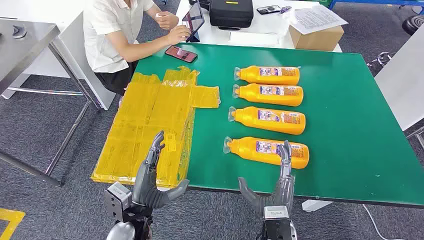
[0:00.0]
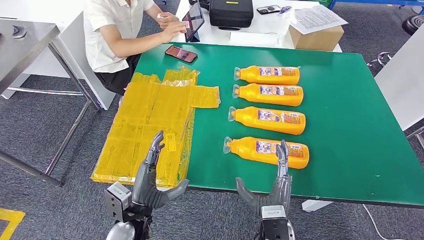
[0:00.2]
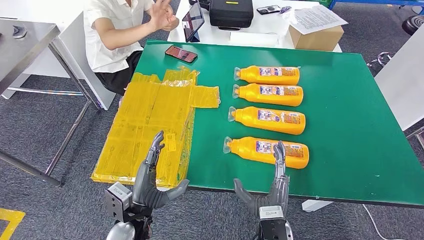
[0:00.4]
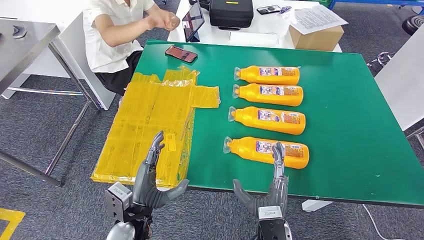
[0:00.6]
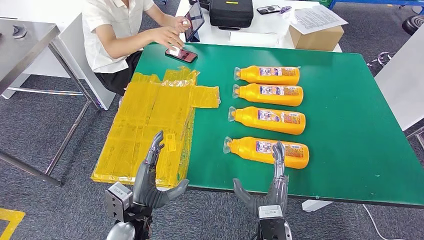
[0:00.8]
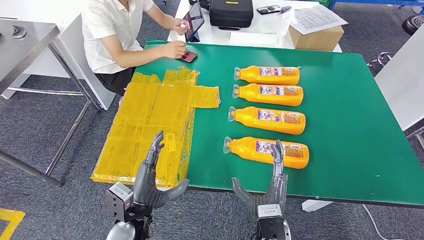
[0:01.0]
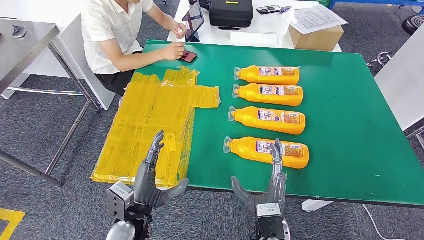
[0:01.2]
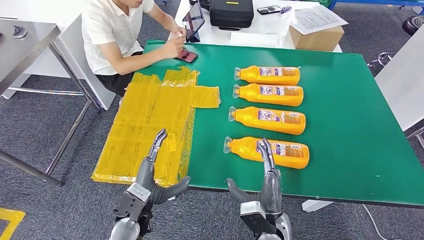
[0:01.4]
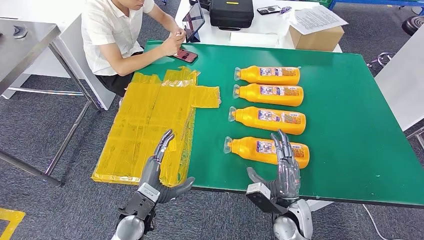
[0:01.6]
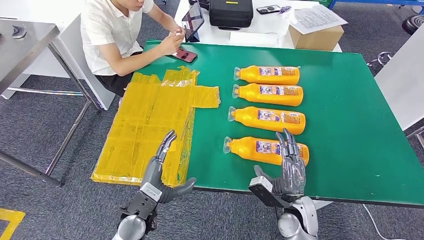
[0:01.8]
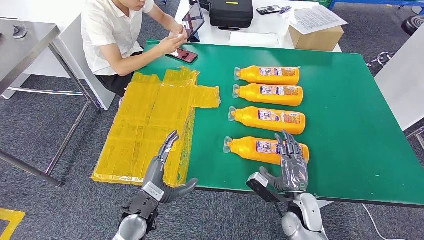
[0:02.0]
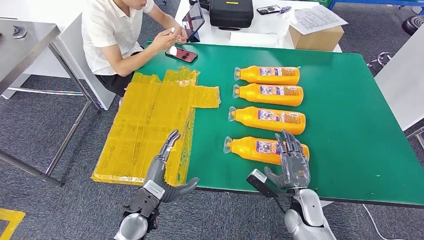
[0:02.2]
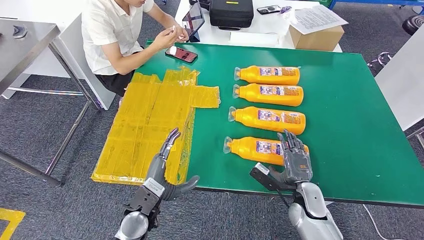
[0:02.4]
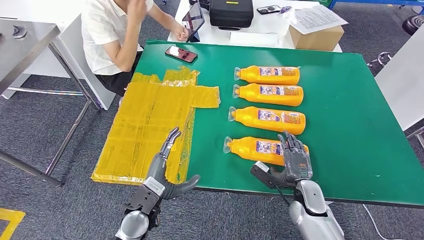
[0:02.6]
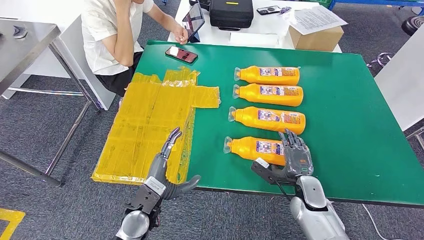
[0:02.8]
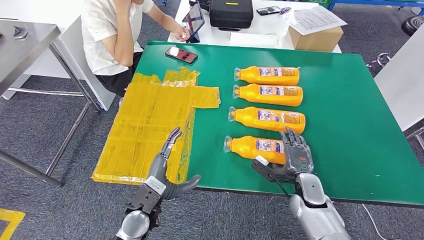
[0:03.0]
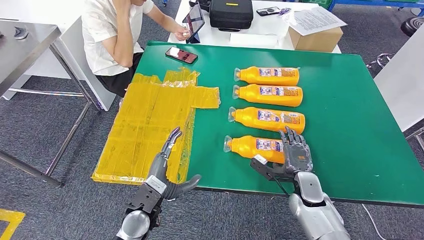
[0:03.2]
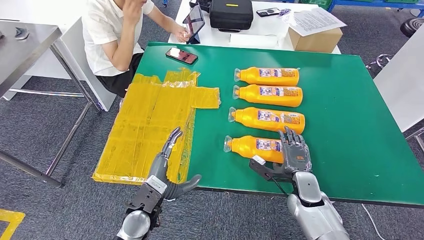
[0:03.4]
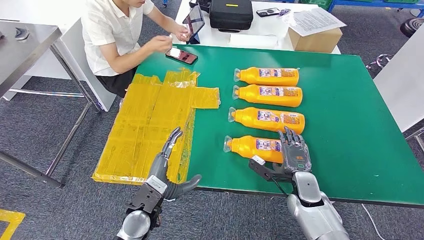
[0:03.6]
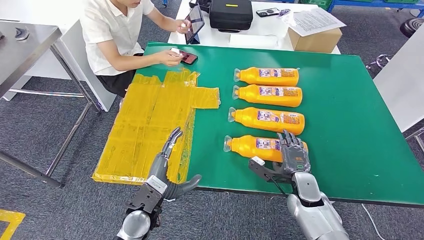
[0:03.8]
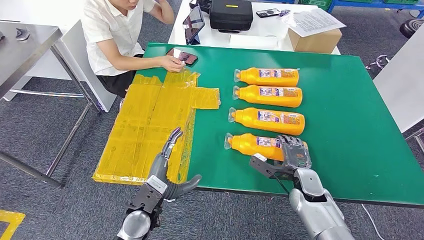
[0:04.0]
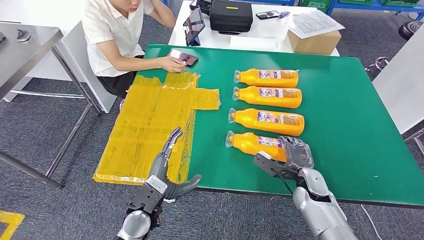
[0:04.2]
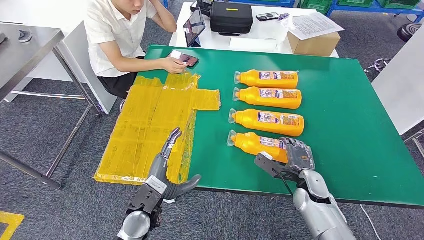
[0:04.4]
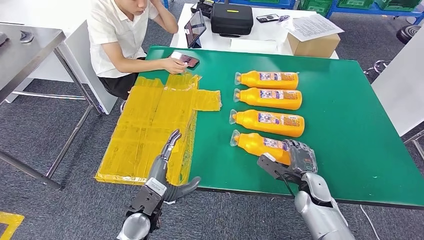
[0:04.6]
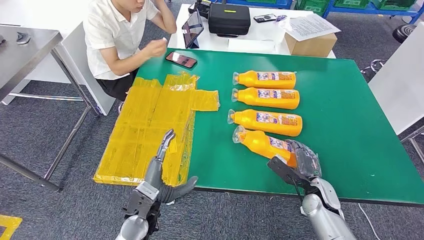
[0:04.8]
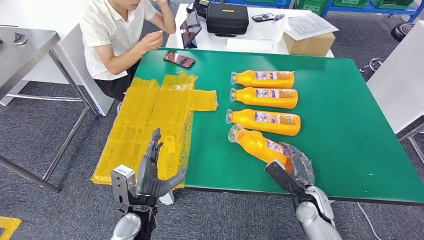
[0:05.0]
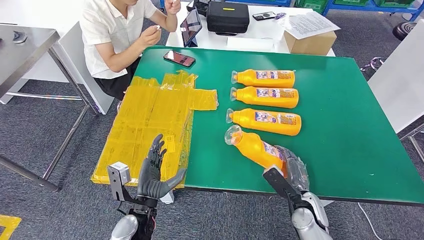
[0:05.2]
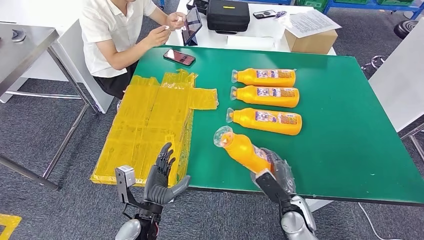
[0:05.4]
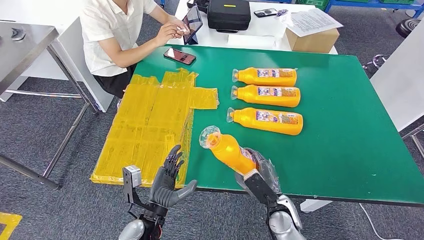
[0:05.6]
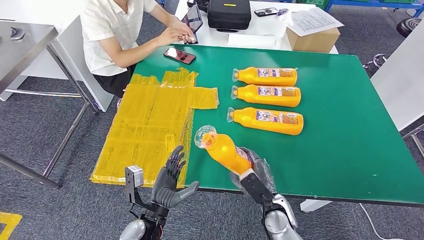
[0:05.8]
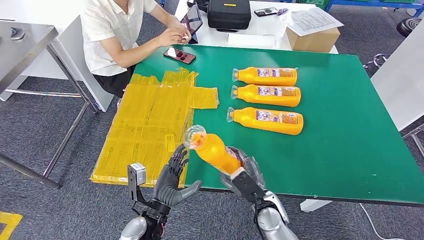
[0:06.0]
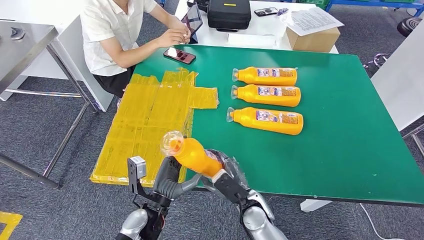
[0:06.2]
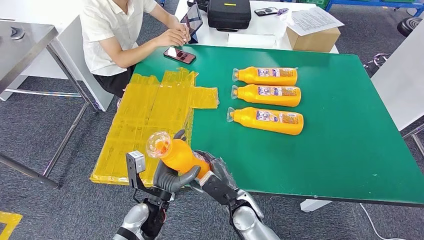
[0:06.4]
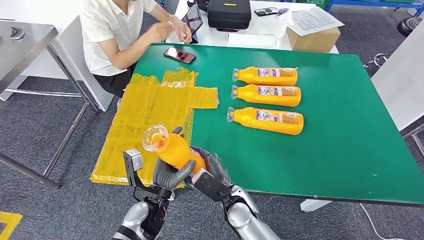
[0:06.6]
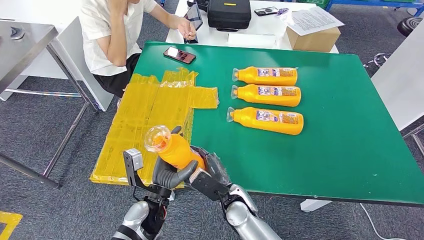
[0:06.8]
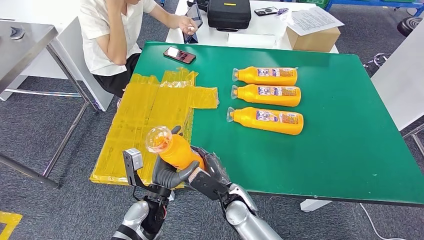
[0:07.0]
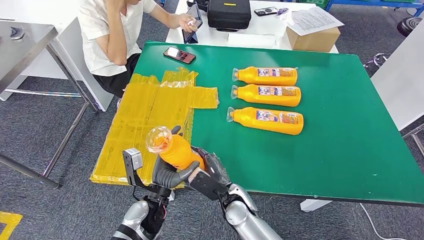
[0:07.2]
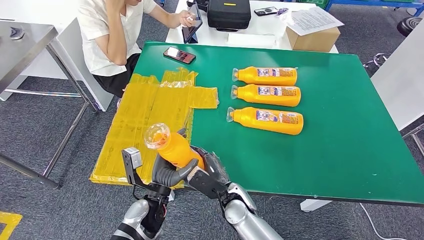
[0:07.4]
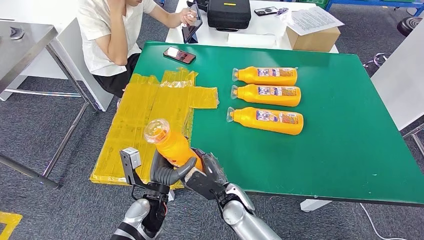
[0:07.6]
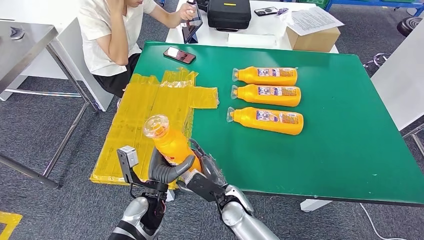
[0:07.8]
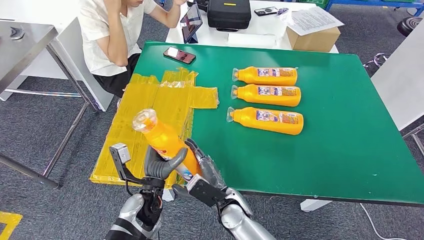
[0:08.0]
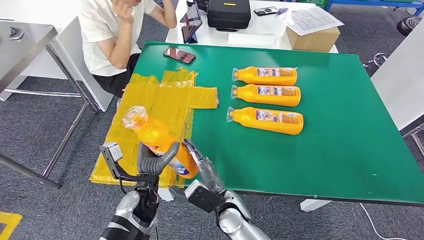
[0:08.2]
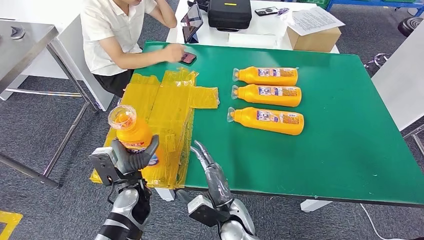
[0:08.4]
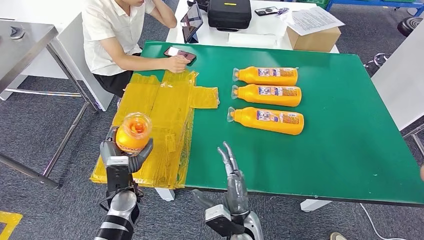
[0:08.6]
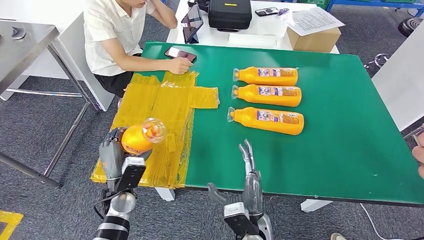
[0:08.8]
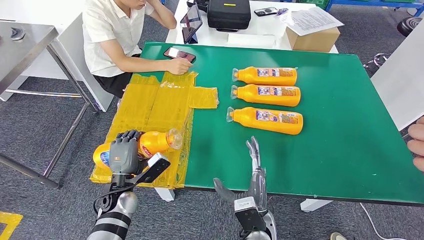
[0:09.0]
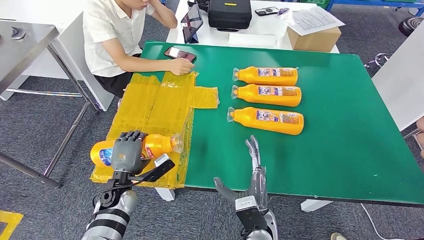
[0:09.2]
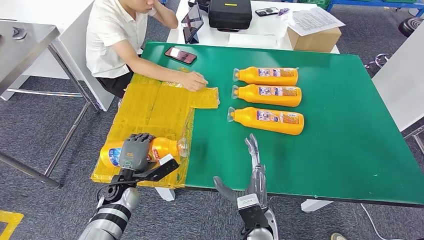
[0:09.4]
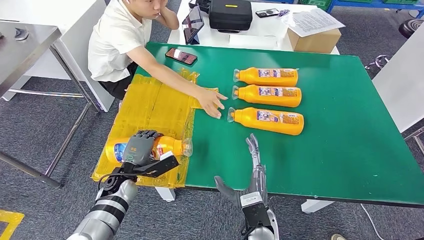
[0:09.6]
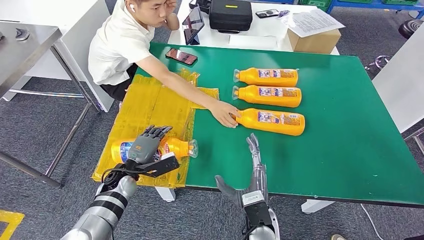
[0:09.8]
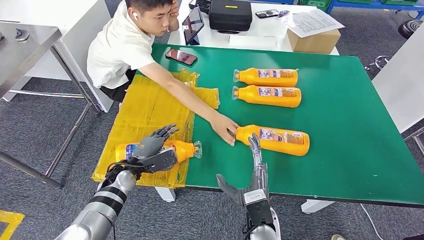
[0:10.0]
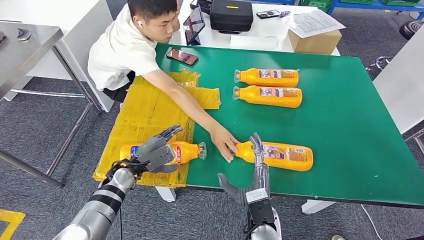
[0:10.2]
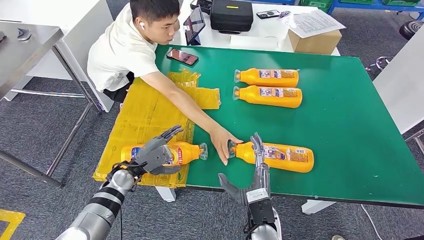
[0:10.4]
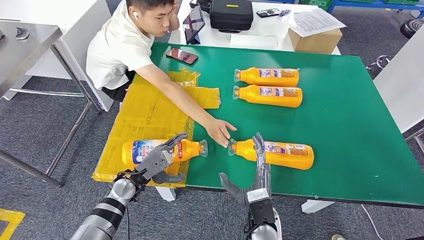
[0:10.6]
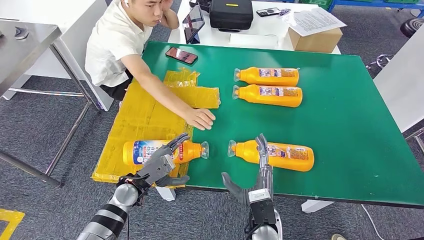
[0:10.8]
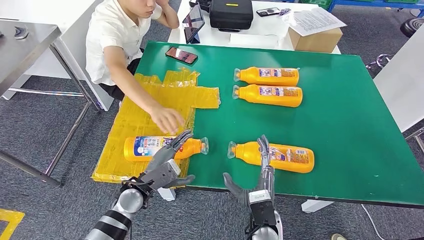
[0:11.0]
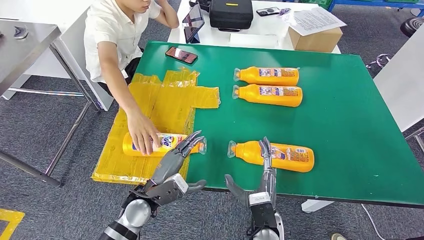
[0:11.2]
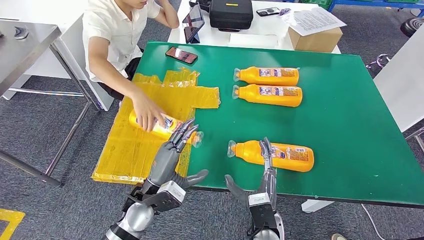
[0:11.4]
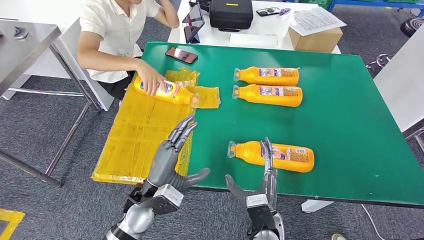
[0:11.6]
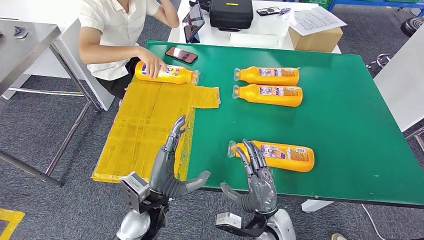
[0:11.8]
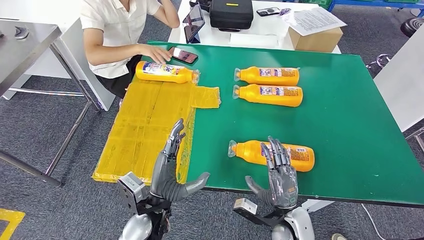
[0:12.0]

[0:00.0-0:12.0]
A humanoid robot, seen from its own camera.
Step, 0:00.0 to 0:06.4: Take the fast-moving consumer goods bottle from the table.
Step, 0:06.6 to 0:10.6: Flip the fast-moving consumer goods bottle to the front side.
0:01.6 to 0:03.0: The right hand goes approximately 10 cm to the right and forward.
0:06.0 to 0:07.6: The right hand is displaced to the left by roughly 10 cm.
0:07.6 to 0:09.0: The left hand shifts about 10 cm to the left; the right hand is displaced backward and to the right by roughly 10 cm.

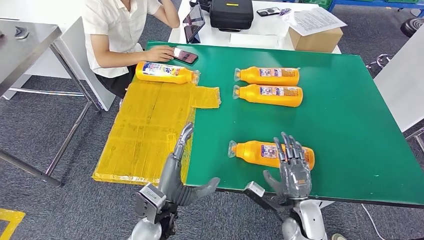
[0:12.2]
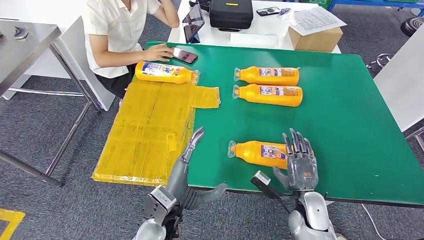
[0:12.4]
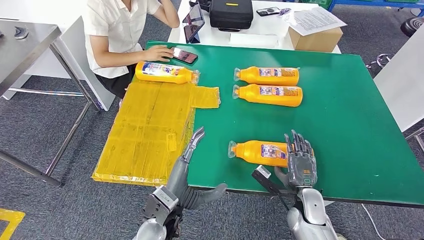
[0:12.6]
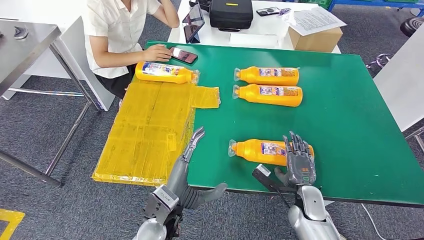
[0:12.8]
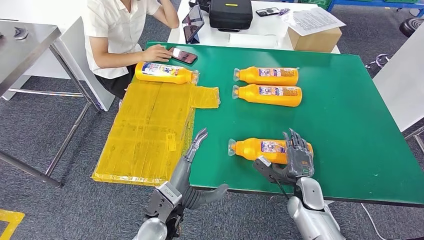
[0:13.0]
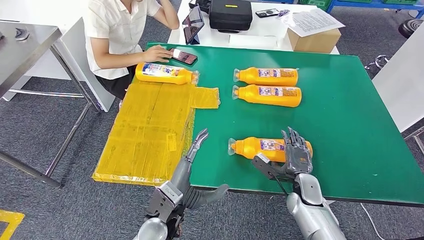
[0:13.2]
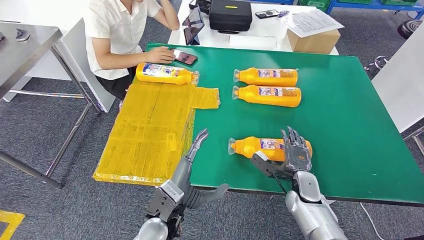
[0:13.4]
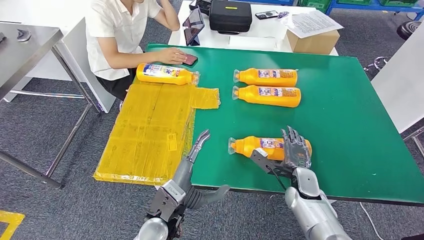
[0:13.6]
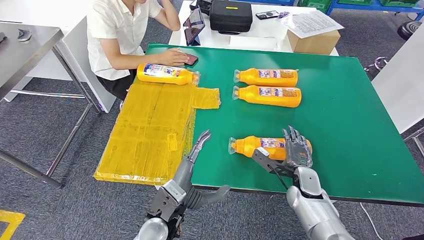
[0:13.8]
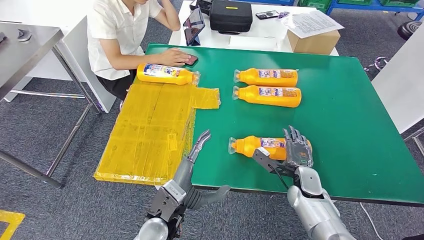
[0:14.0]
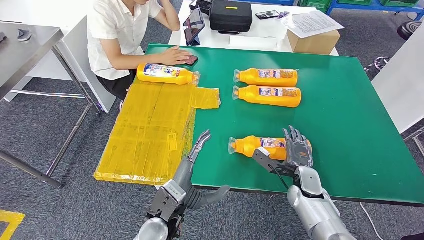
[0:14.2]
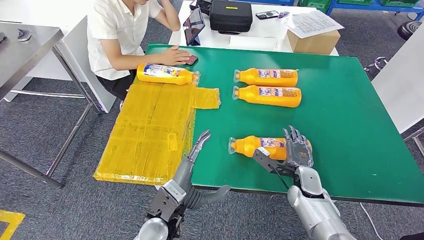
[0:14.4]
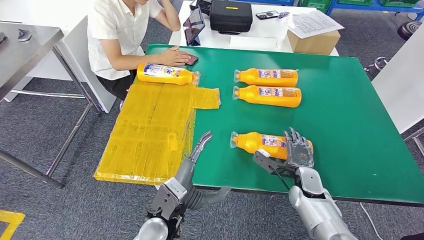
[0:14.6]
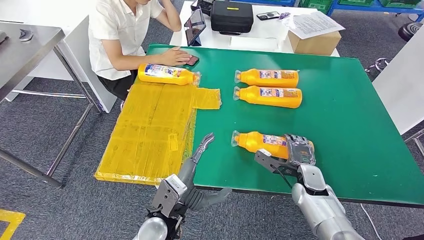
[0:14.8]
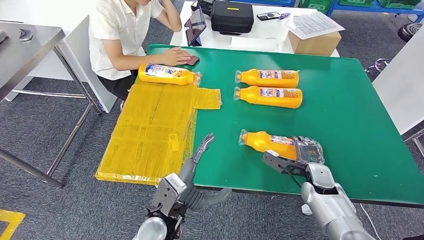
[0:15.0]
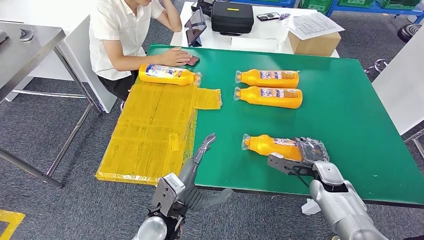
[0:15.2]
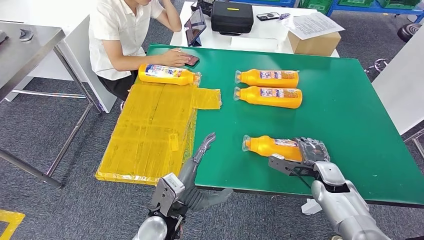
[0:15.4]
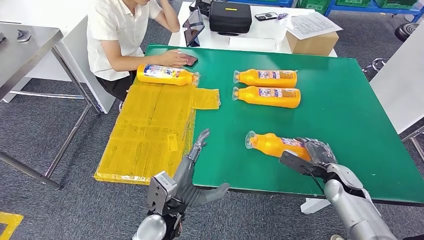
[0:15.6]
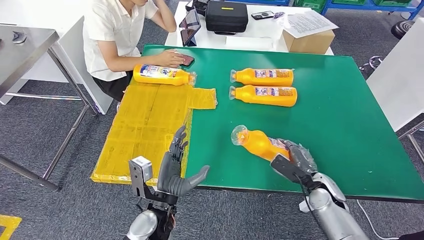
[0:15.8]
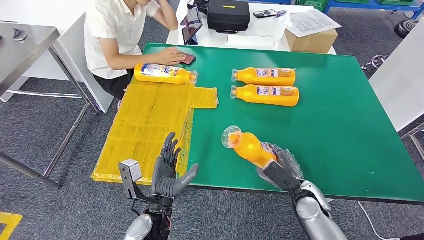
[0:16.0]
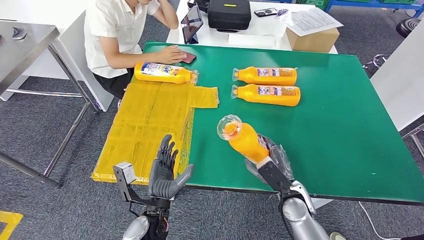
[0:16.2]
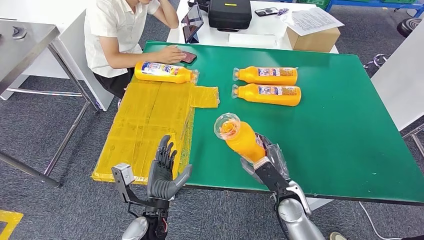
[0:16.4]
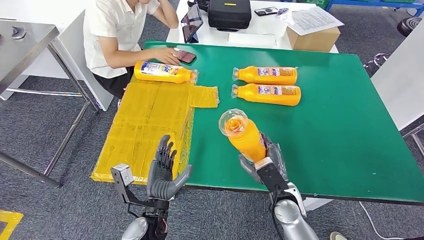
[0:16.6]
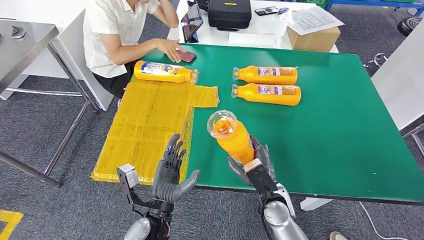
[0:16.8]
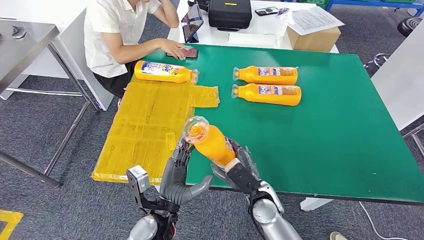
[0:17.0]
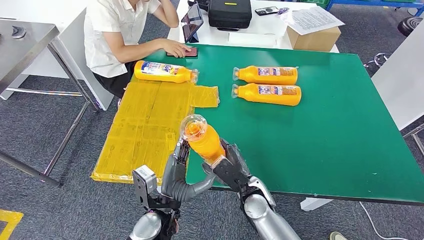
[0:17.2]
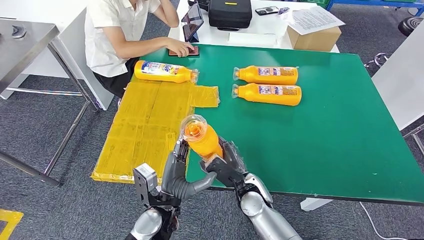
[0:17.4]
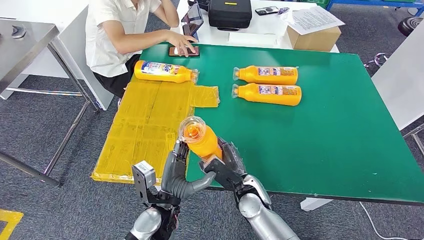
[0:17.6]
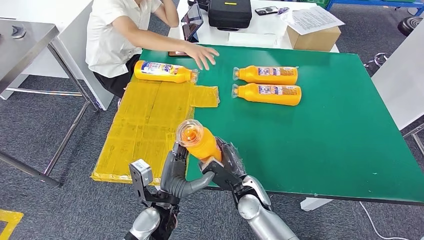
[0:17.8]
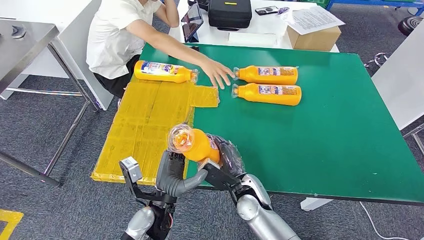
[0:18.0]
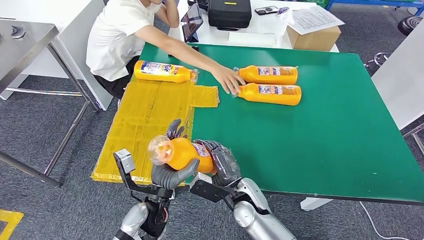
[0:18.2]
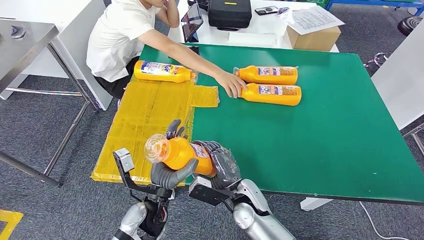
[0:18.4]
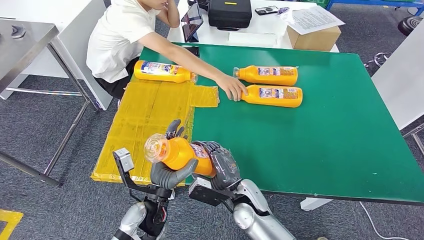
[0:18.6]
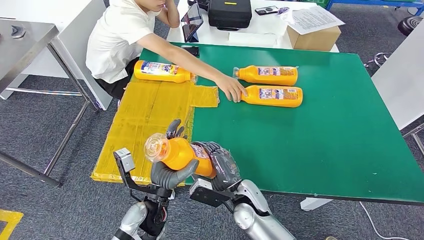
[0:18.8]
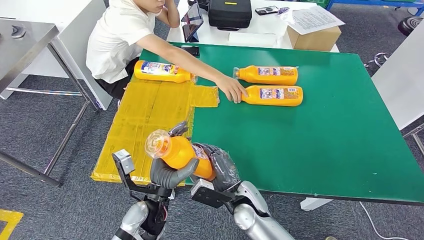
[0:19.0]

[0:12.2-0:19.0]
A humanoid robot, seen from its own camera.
Step, 0:12.2 to 0:16.6: Pick up the fast-moving consumer goods bottle from the table.
0:13.6 to 0:15.0: The right hand ends up about 5 cm from where it was.
0:17.6 to 0:19.0: The hands move only a little.
